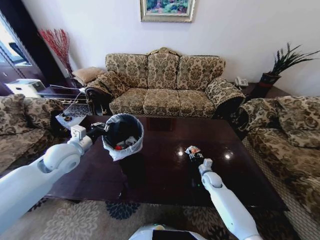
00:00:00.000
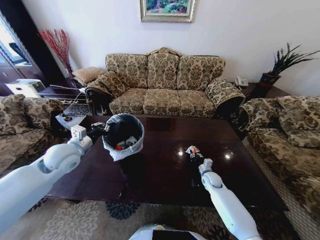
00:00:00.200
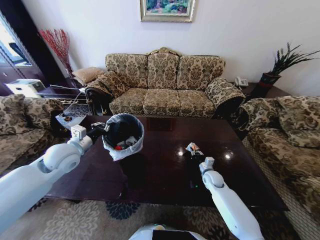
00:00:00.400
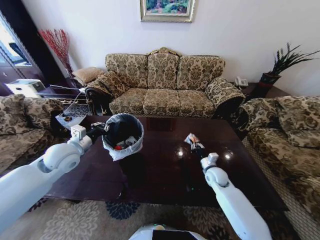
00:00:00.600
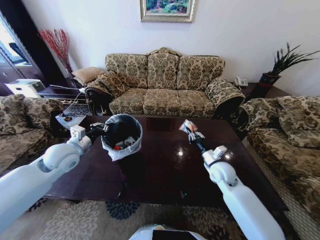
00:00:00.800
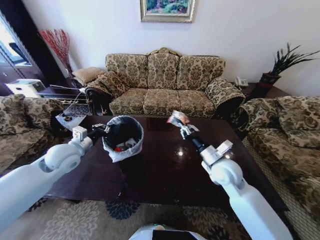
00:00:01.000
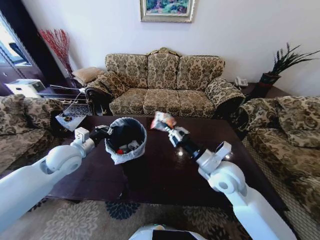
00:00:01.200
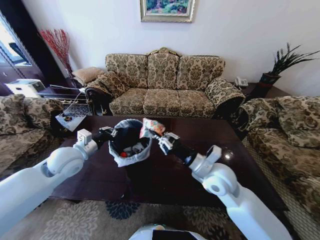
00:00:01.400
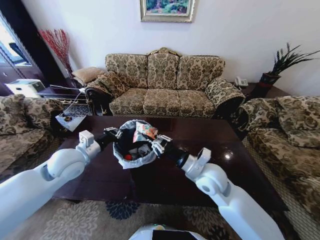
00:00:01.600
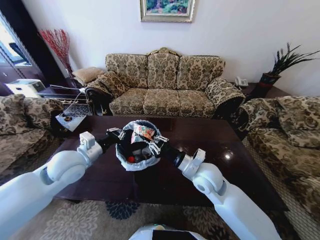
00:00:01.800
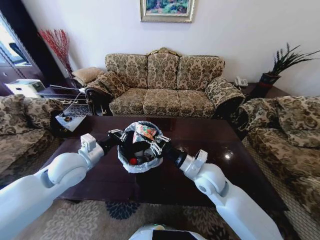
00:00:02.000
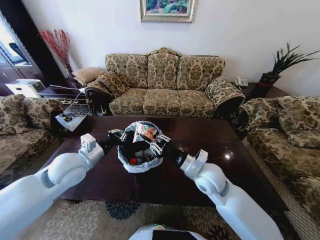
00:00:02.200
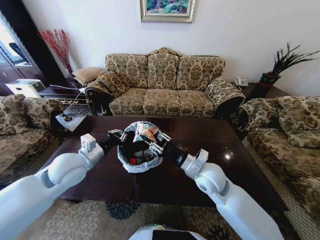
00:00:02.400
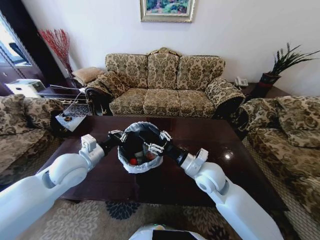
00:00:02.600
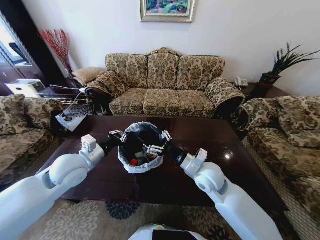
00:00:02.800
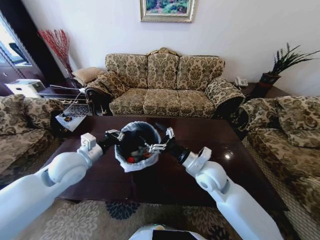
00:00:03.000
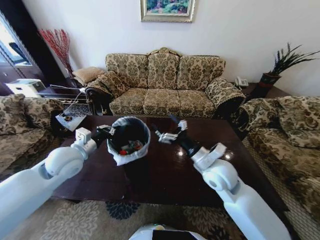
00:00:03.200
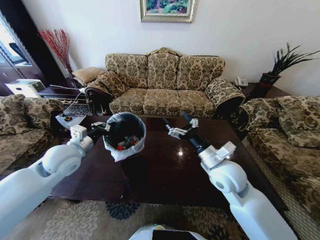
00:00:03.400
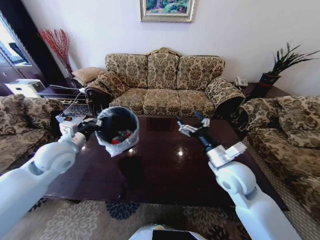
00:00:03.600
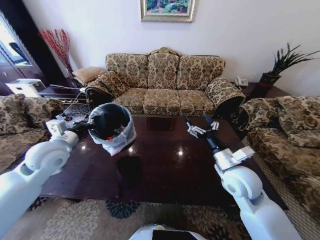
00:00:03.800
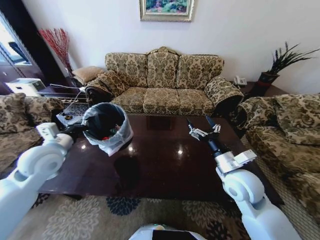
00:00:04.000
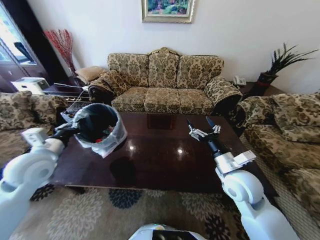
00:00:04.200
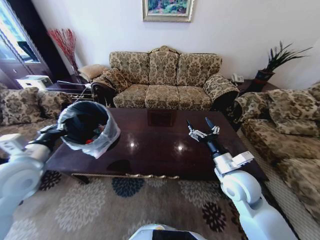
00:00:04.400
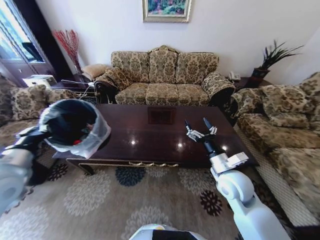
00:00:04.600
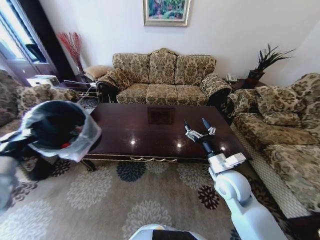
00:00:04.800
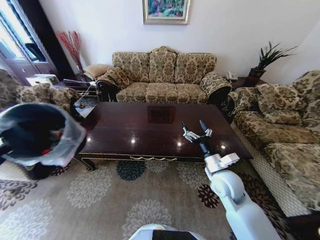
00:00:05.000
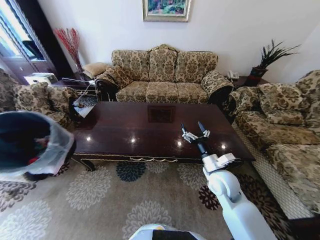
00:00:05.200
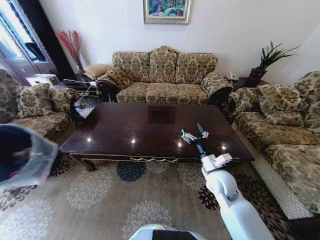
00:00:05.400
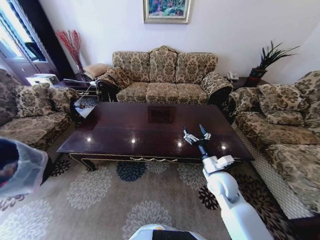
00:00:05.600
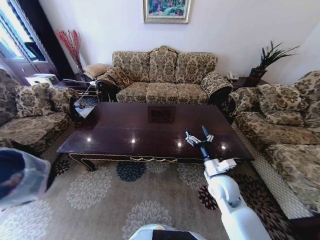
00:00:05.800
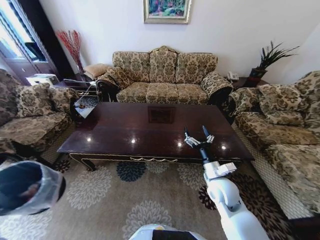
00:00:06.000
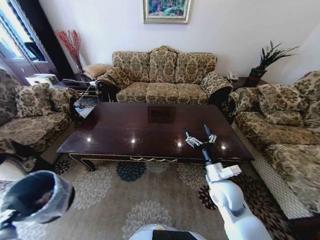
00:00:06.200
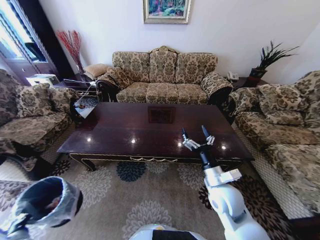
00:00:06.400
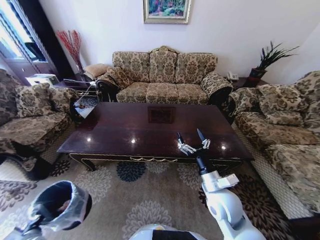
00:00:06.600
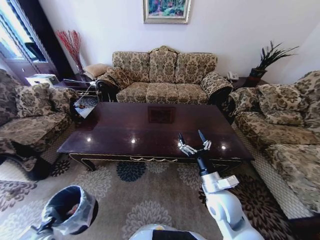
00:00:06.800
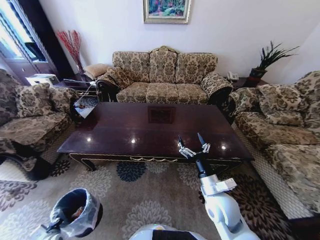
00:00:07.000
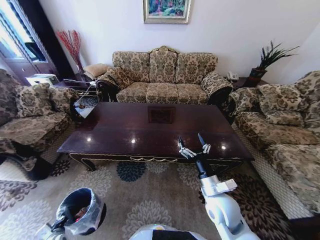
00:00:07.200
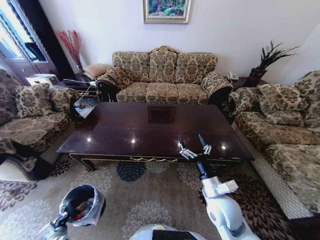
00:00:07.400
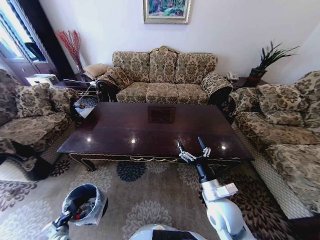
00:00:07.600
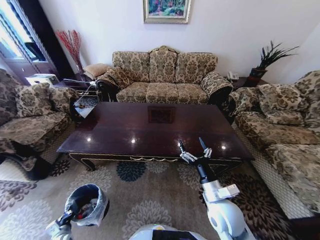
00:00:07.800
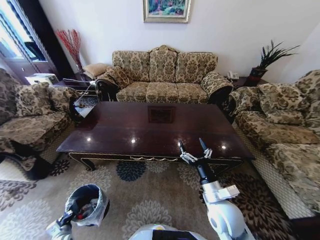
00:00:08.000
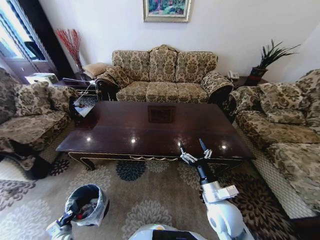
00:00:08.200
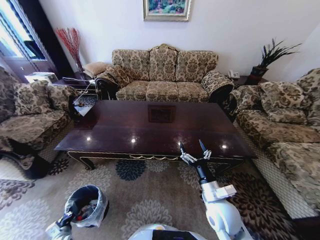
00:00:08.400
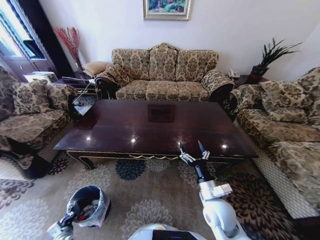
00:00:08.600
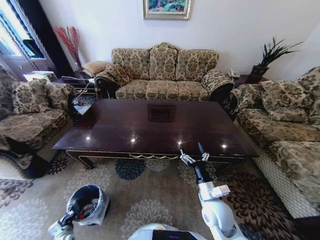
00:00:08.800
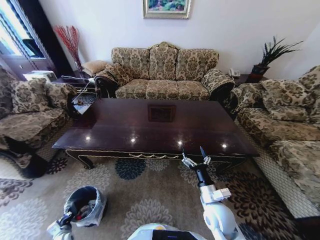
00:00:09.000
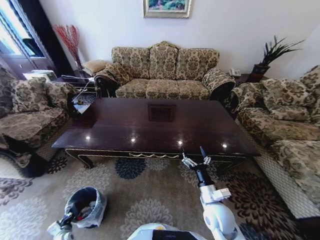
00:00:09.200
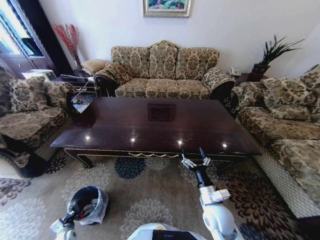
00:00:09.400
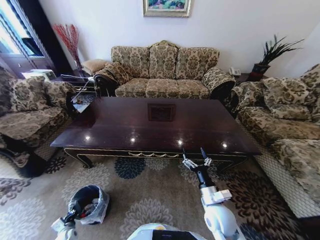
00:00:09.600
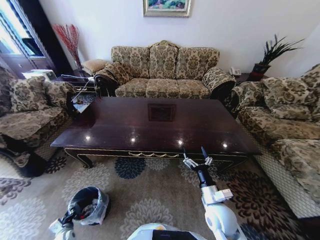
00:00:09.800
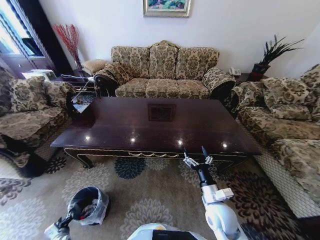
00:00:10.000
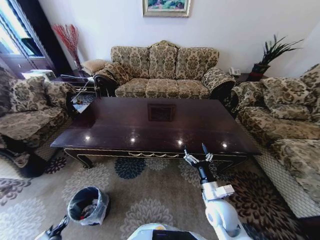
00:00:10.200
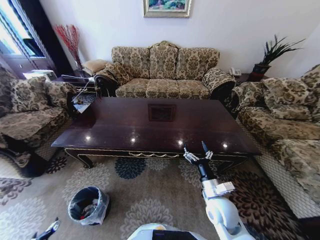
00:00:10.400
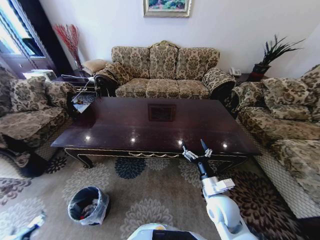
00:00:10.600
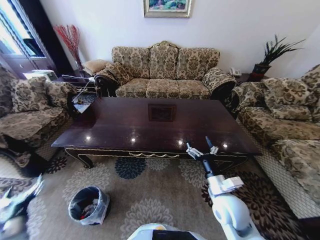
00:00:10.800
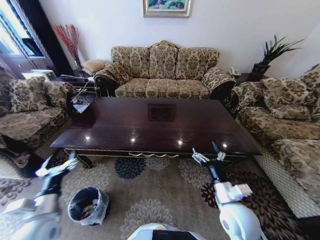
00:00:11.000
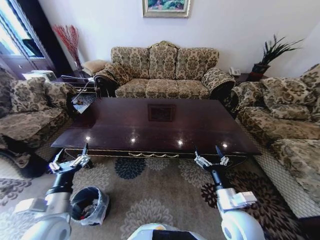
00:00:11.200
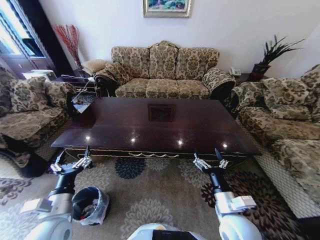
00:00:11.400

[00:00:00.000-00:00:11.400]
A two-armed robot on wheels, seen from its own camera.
Task of the whole recording: Move to the front of the table and place the trash on the table into the trash bin.
00:00:00.000 to 00:00:01.400: The right gripper goes about 30 cm upward and to the left, and closes its fingers.
00:00:01.400 to 00:00:02.800: The right gripper opens its fingers.
00:00:02.800 to 00:00:04.200: The left gripper heads to the left, covering approximately 10 cm. The right gripper moves to the right, about 10 cm.
00:00:04.200 to 00:00:05.600: The left gripper is displaced backward and to the left by approximately 20 cm, while the right gripper goes about 5 cm downward.
00:00:05.600 to 00:00:07.200: The left gripper goes some 35 cm downward, while the right gripper goes about 10 cm backward.
00:00:08.600 to 00:00:10.000: The left gripper opens up.
00:00:10.000 to 00:00:11.400: The right gripper travels upward by roughly 5 cm. The left gripper is displaced upward and to the right by approximately 40 cm, and opens its fingers.

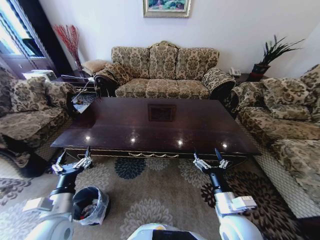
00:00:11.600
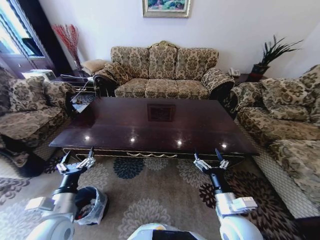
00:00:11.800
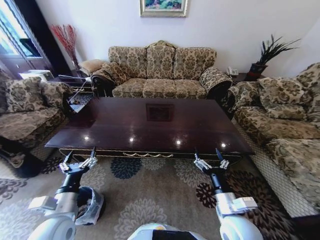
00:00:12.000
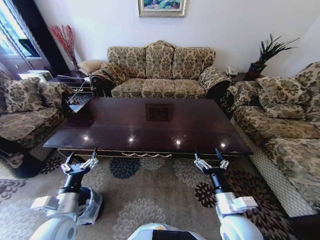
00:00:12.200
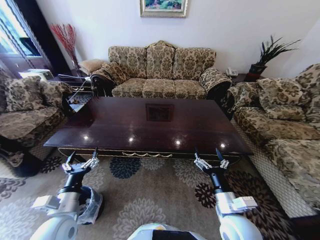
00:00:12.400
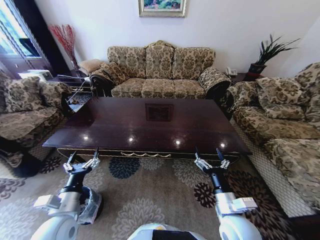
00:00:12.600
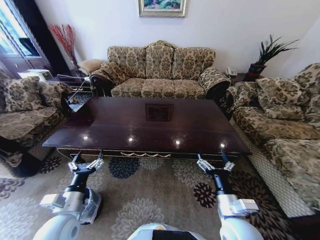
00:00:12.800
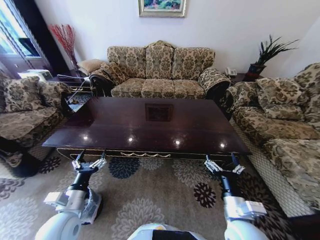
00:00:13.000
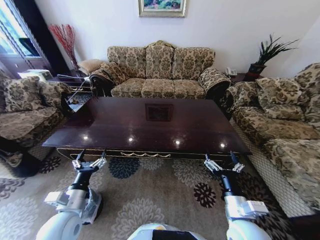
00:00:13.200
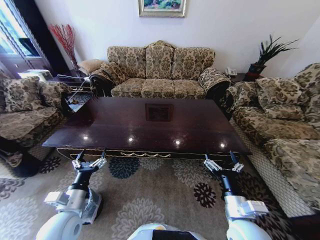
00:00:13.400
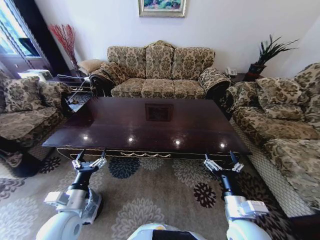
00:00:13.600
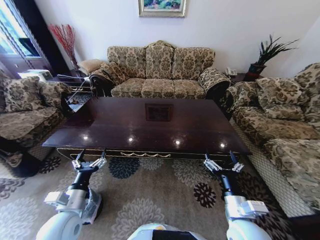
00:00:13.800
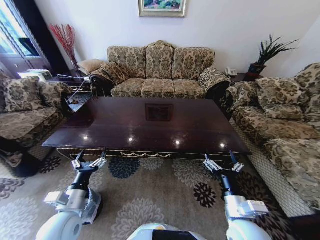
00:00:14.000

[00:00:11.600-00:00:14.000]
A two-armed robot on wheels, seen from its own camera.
Task of the whole recording: Move to the front of the table and place the trash on the table into the trash bin.
00:00:12.800 to 00:00:14.000: The grippers make only small movements.
